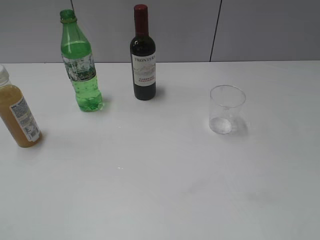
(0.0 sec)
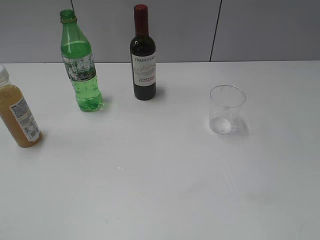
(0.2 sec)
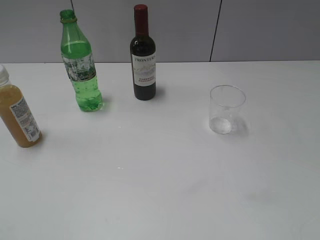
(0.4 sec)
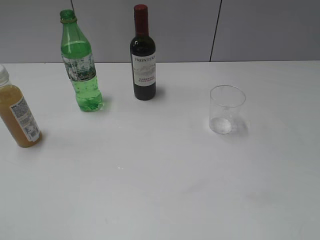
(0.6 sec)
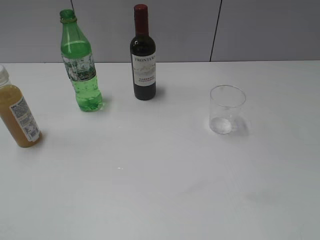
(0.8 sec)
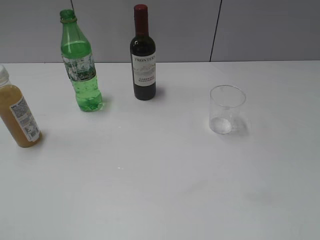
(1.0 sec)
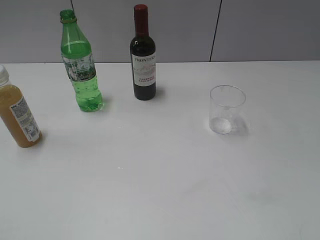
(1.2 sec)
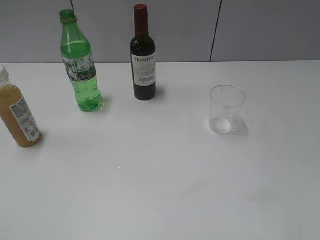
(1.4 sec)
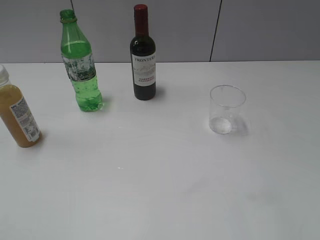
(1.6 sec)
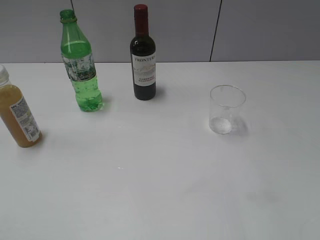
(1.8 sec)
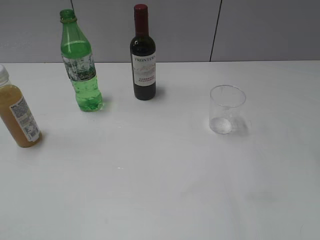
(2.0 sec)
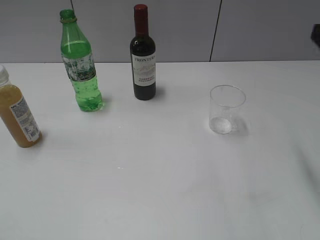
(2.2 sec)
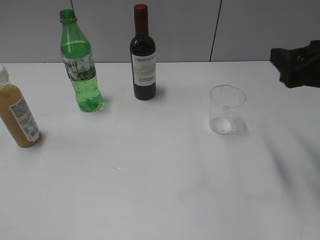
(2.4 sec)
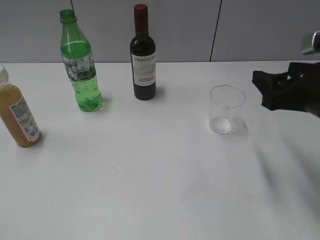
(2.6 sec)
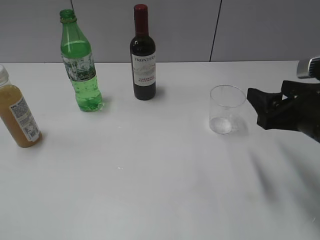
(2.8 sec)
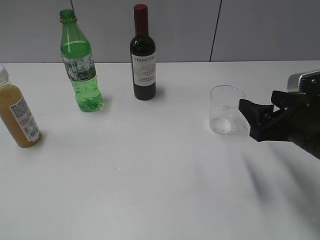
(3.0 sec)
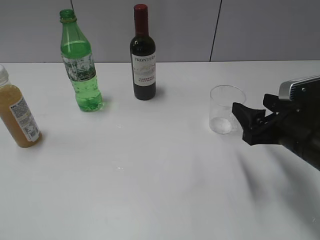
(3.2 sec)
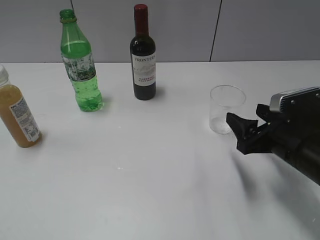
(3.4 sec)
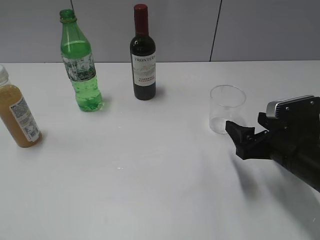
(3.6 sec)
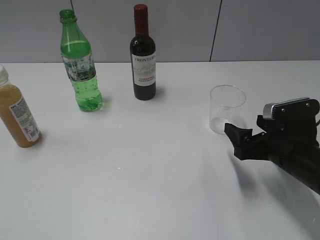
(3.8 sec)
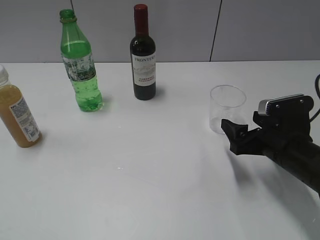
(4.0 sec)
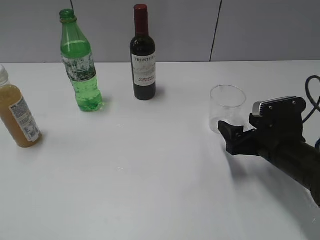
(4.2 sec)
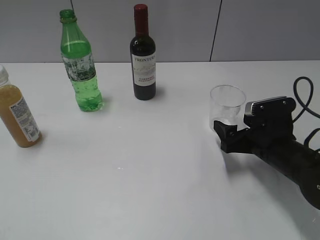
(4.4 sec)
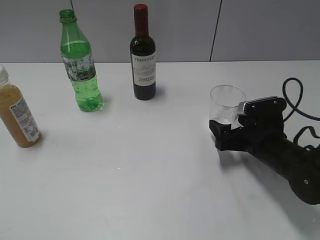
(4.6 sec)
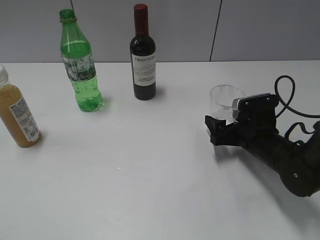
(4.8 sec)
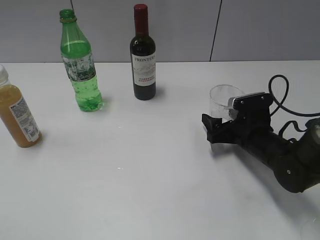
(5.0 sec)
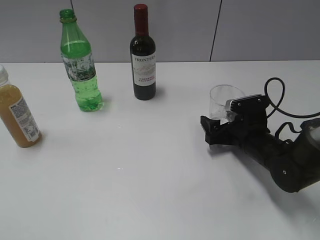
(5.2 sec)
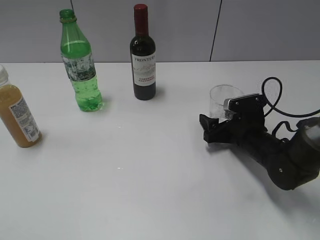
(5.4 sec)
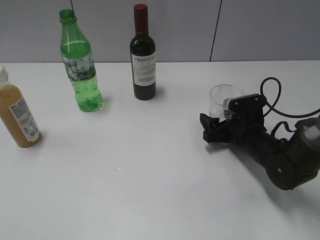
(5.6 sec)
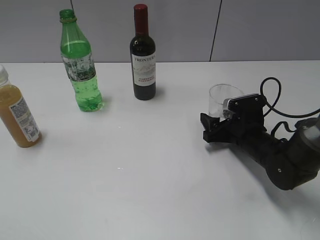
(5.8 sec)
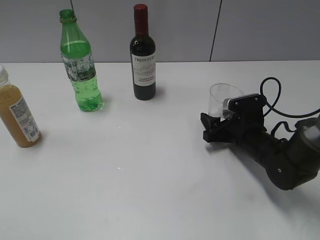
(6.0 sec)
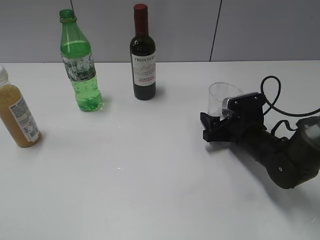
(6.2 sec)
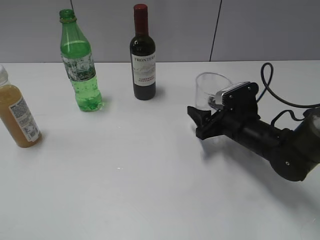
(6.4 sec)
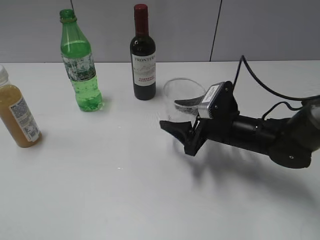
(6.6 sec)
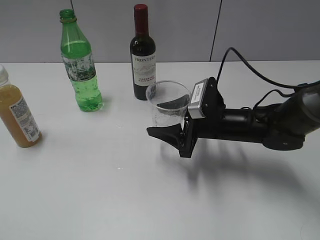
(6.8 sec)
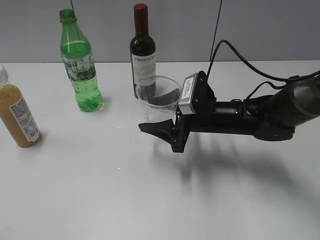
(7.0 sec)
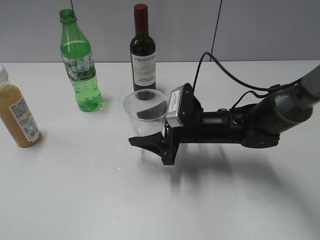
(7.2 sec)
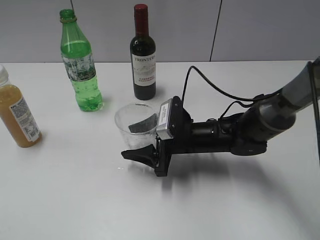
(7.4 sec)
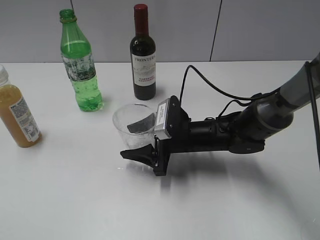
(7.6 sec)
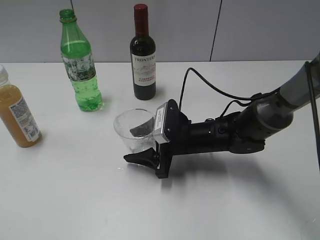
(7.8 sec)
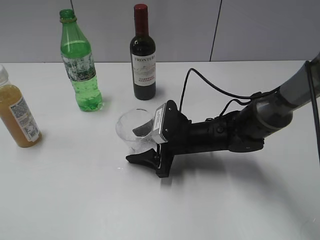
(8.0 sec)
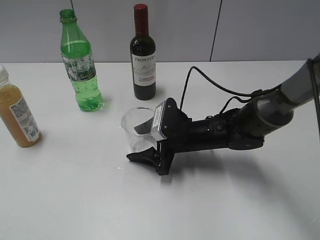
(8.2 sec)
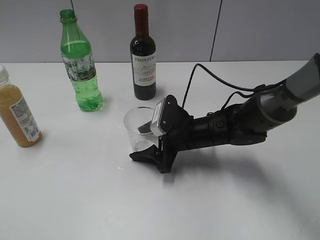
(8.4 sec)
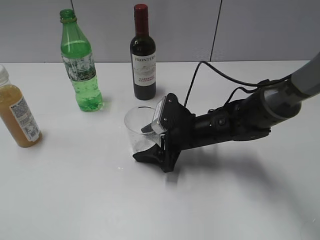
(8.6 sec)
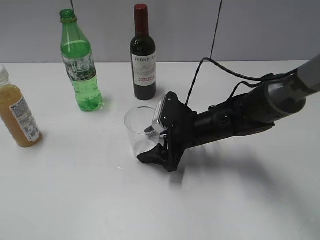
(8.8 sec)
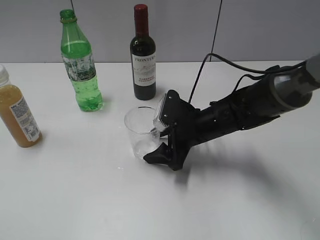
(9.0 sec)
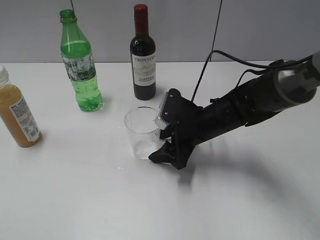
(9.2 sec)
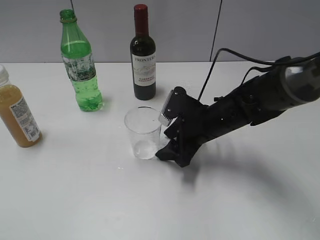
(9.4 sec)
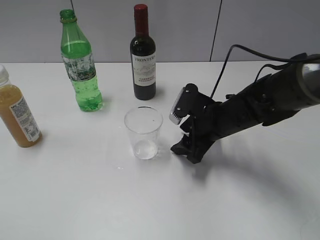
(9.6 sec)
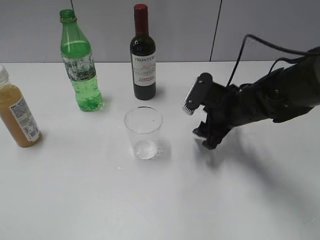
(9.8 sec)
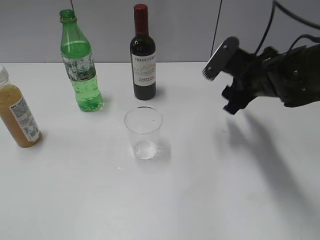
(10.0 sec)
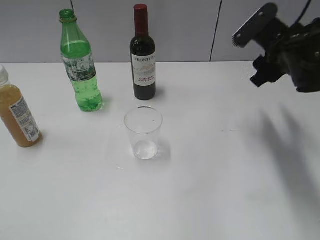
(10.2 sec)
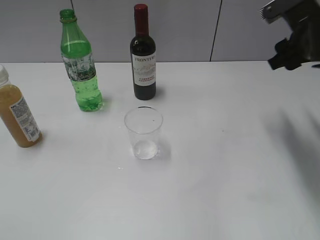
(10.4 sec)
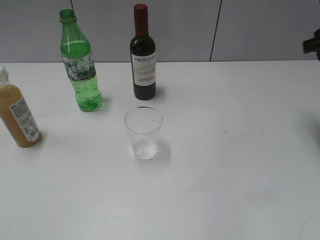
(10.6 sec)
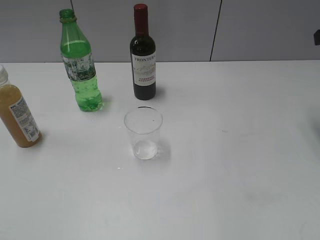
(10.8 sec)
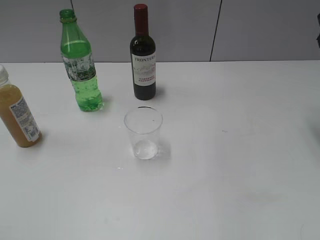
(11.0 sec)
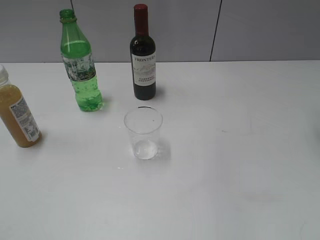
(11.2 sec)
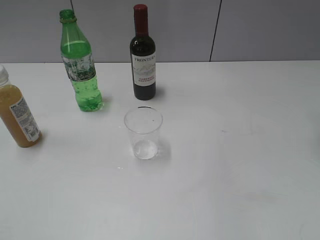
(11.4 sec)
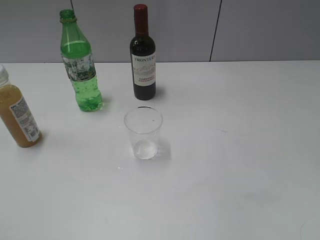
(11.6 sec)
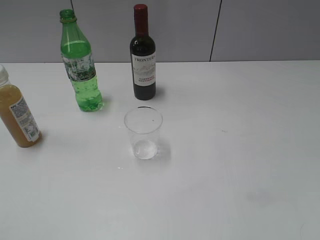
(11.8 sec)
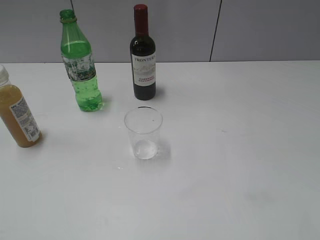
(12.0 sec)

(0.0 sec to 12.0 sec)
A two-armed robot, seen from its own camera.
Step, 1.0 sec - 6.0 sec: Grasp the transparent cup with right gripper.
Step, 6.2 sec - 9.4 sec: Place the transparent cup on the table with right gripper.
1.6 sec - 3.0 sec: The right gripper heads downward, forward and to the left, covering roughly 20 cm.
3.0 sec - 4.4 sec: The right gripper moves downward, about 10 cm.
4.4 sec - 6.0 sec: The right gripper travels forward by roughly 5 cm, and closes.
6.0 sec - 7.6 sec: The right gripper travels to the left by roughly 10 cm.
9.0 sec - 10.4 sec: The right gripper shifts some 20 cm upward and to the right.
10.4 sec - 12.0 sec: The right gripper is displaced backward, to the right and upward by roughly 20 cm, and opens up.

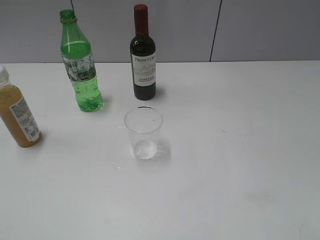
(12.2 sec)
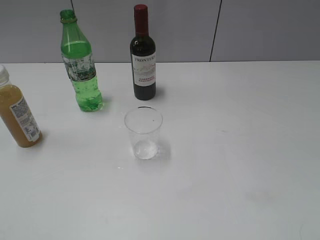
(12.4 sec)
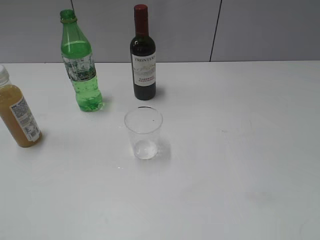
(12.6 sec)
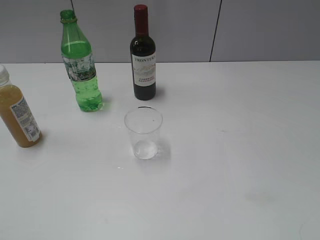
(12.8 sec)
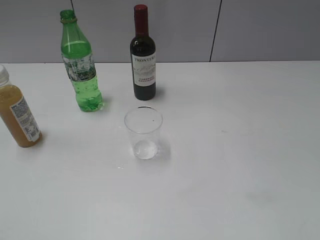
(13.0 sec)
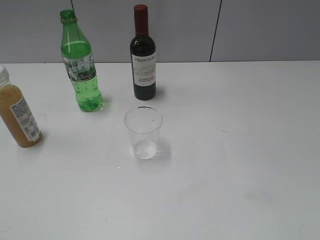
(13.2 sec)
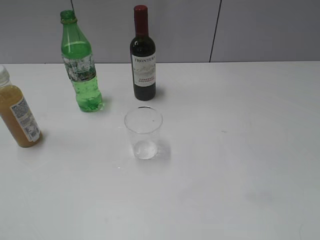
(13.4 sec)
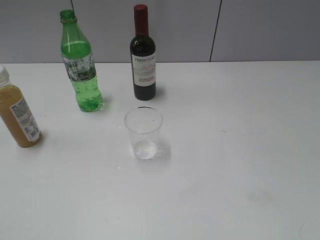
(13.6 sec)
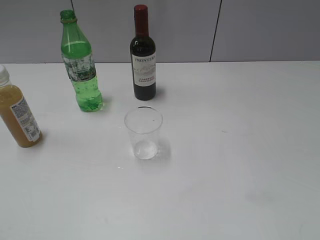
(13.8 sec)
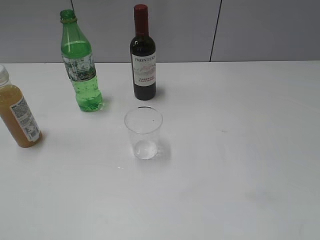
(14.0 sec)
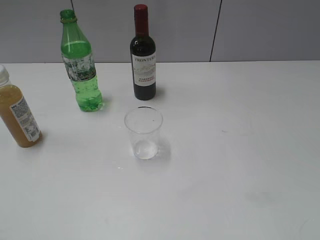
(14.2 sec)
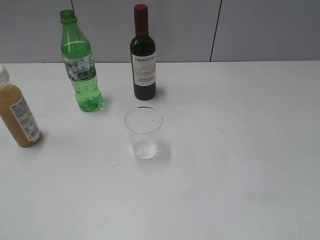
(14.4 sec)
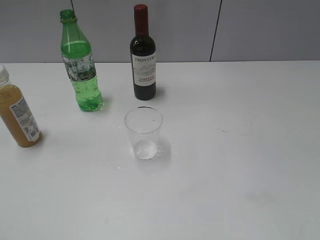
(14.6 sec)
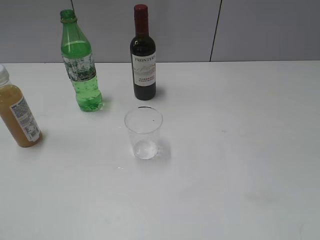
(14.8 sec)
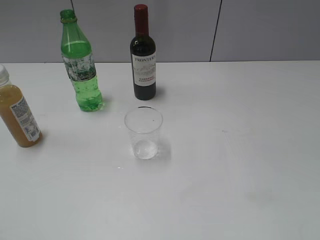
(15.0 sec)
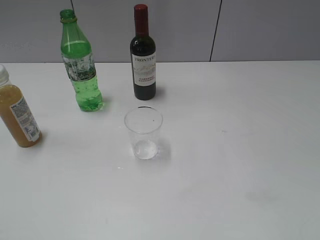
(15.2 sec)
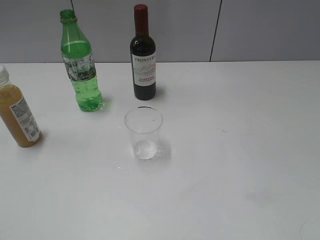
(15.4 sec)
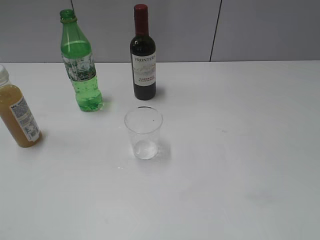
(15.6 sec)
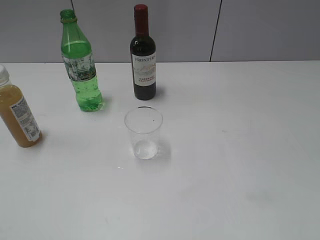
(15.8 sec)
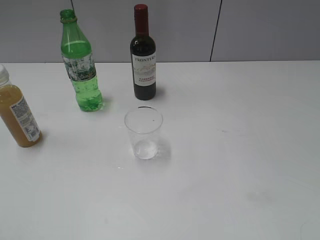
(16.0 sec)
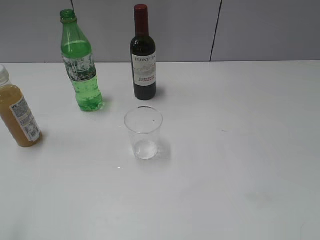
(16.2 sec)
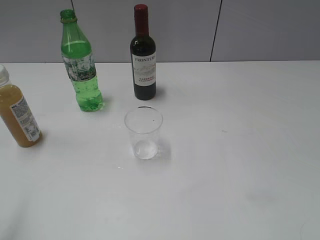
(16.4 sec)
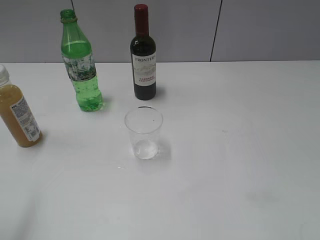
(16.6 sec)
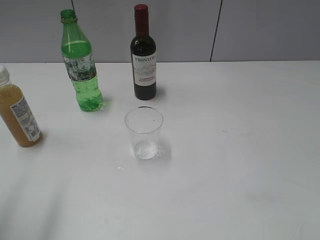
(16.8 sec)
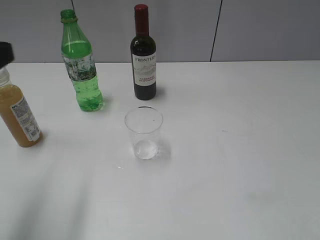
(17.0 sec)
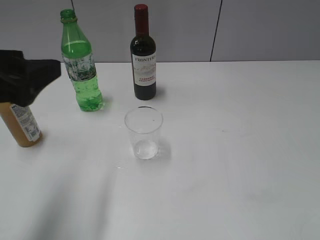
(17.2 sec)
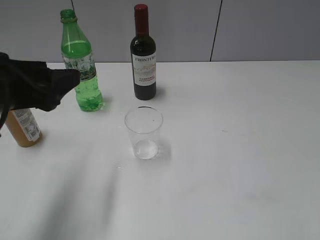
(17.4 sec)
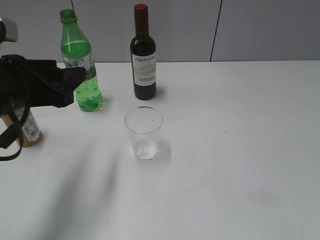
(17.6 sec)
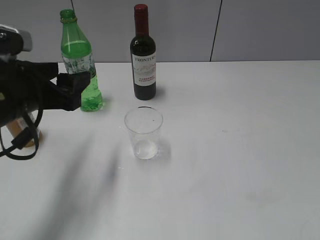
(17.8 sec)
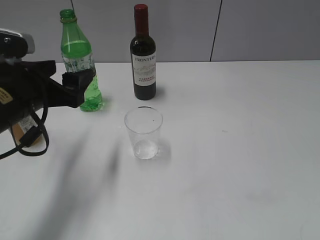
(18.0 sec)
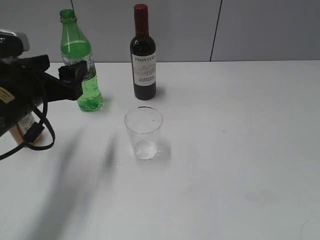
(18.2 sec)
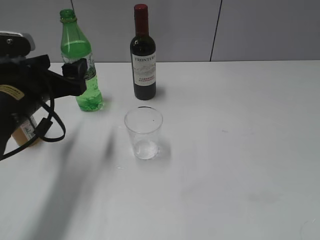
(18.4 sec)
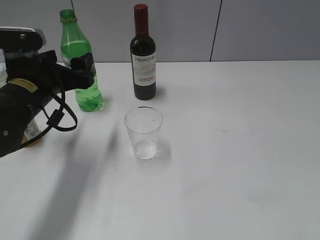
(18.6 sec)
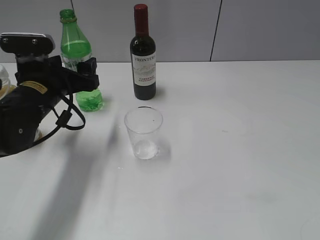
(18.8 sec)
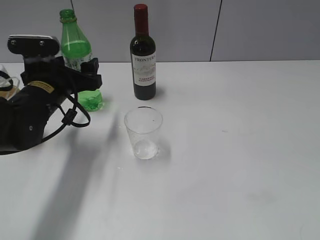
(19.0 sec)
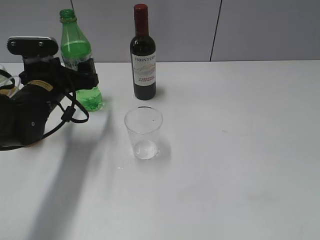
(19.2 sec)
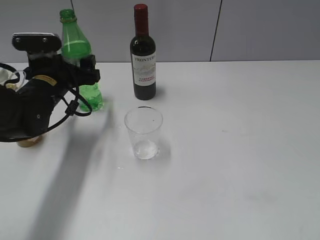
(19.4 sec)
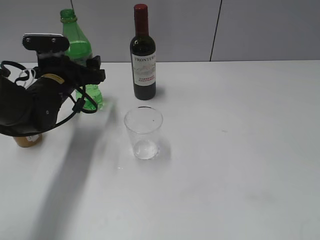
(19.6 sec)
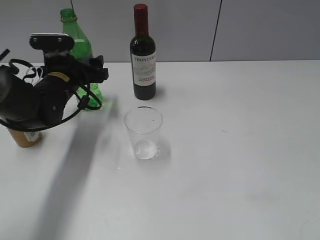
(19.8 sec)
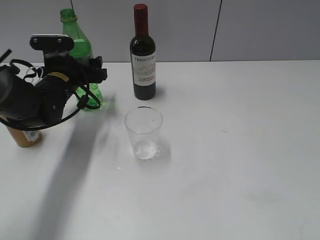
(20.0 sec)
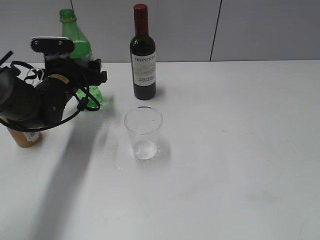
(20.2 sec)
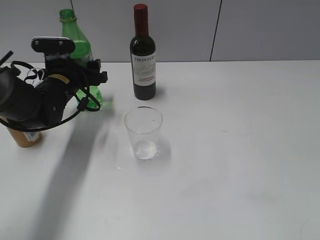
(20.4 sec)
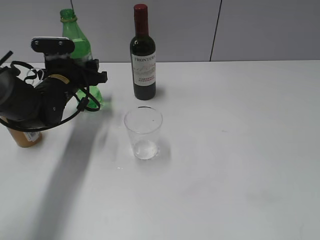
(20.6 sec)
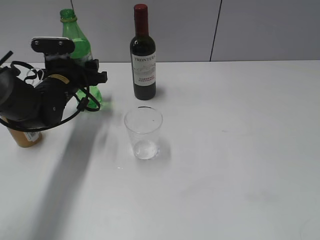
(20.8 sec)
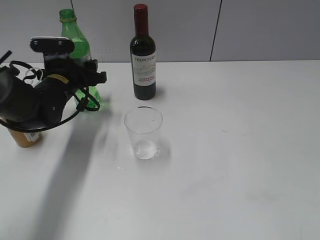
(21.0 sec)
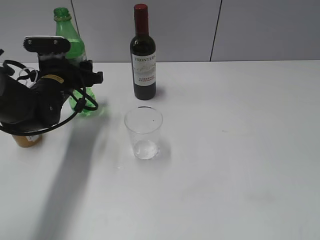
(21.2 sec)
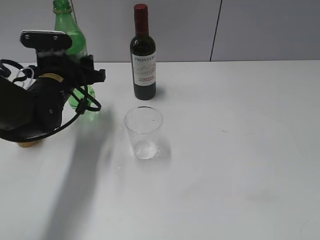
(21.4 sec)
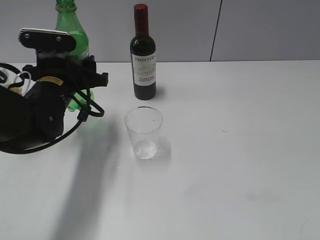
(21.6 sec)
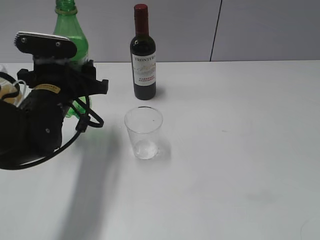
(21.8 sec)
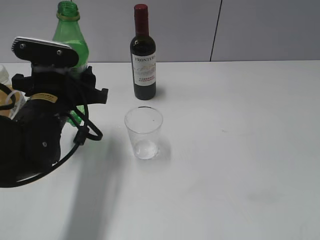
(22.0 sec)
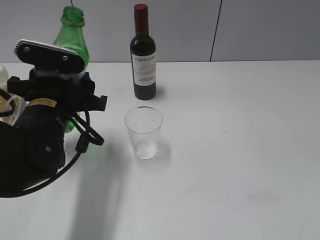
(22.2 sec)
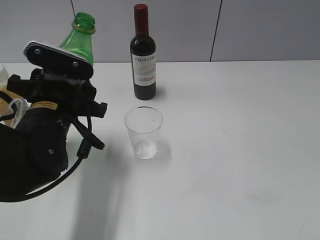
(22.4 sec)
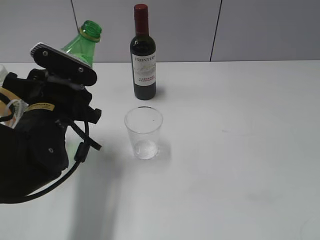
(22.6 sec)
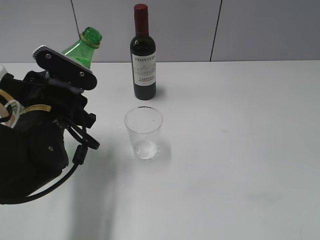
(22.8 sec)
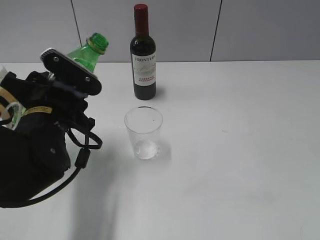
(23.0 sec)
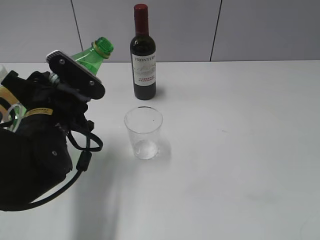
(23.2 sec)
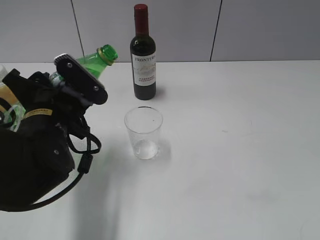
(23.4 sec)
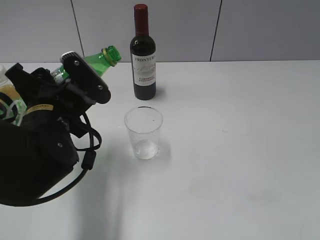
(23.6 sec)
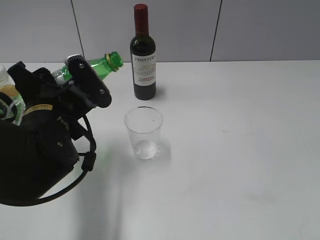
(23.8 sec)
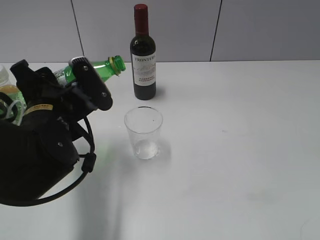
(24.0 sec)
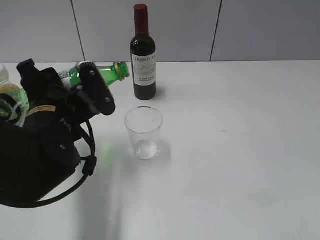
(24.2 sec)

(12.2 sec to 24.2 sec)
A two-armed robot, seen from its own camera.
Step, 12.2 sec - 20.6 sec: Grasp the bottle with sprite with left gripper.
13.8 sec - 15.2 sec: Both grippers stay put.
16.6 sec - 18.2 sec: The left gripper is displaced forward, downward and to the right by some 20 cm.
18.2 sec - 19.8 sec: The left gripper heads forward and downward, covering roughly 15 cm.
19.8 sec - 21.2 sec: The left gripper closes.
21.2 sec - 22.6 sec: The left gripper travels backward by some 15 cm.
